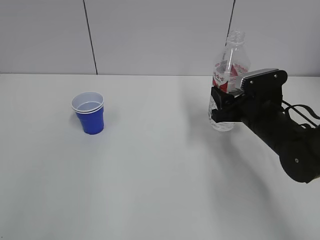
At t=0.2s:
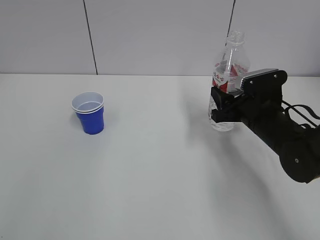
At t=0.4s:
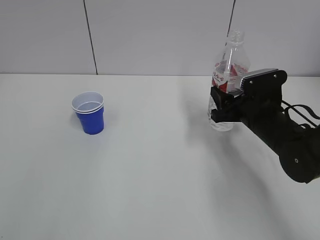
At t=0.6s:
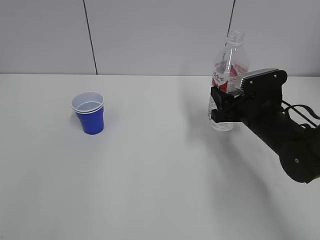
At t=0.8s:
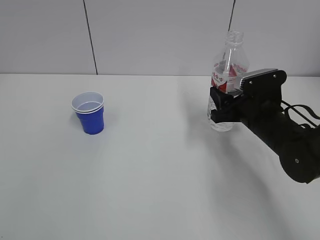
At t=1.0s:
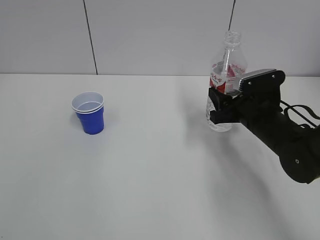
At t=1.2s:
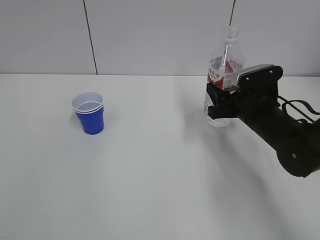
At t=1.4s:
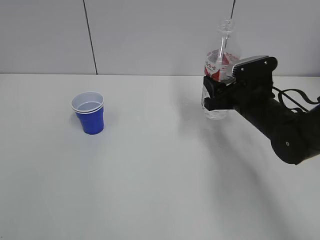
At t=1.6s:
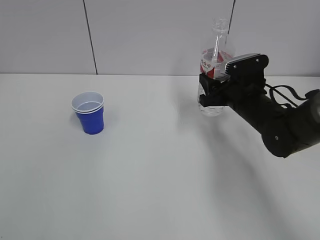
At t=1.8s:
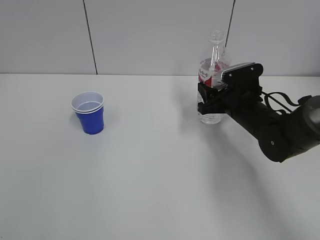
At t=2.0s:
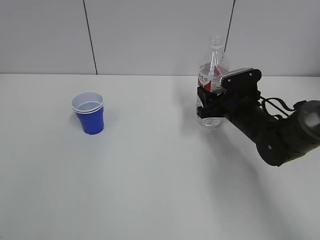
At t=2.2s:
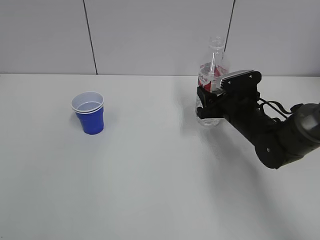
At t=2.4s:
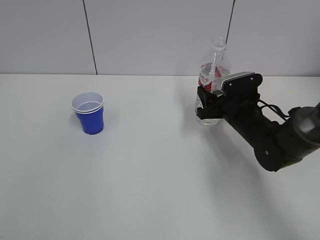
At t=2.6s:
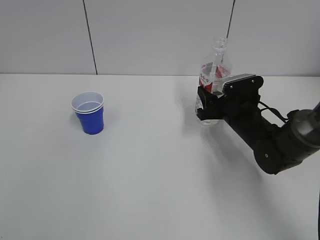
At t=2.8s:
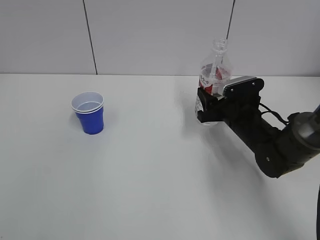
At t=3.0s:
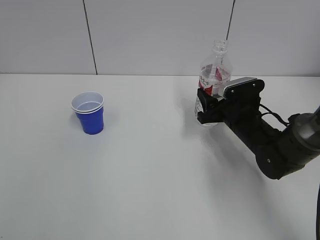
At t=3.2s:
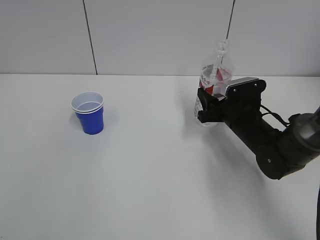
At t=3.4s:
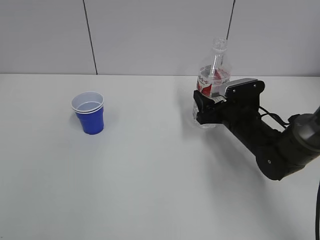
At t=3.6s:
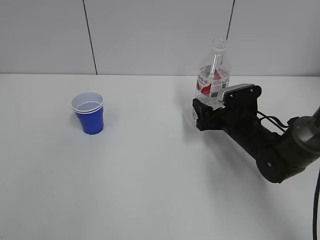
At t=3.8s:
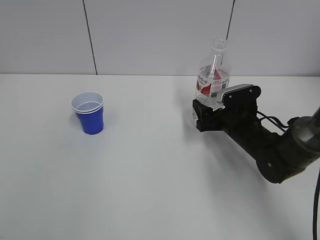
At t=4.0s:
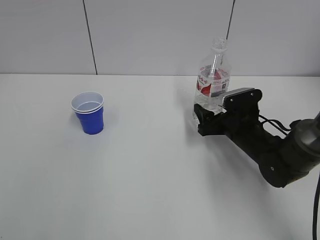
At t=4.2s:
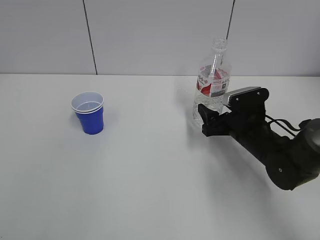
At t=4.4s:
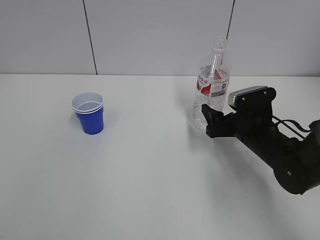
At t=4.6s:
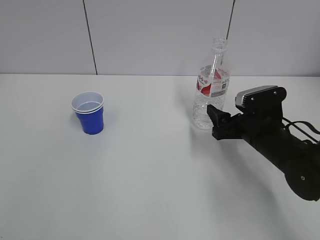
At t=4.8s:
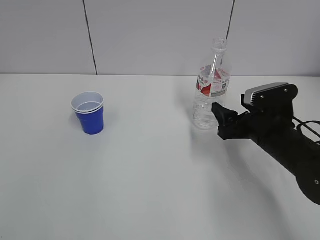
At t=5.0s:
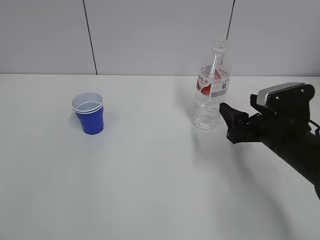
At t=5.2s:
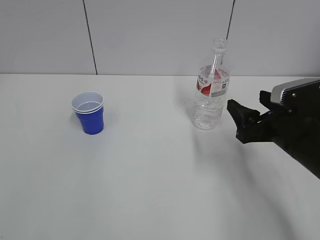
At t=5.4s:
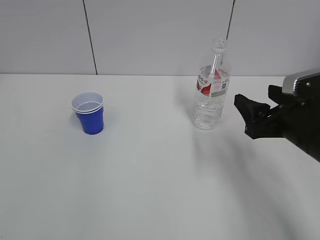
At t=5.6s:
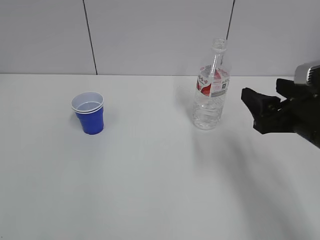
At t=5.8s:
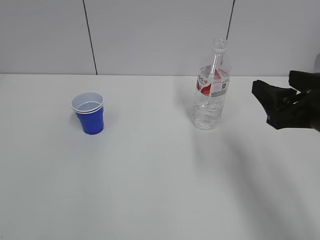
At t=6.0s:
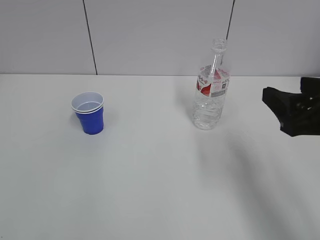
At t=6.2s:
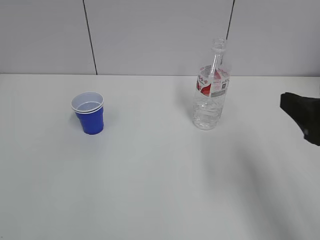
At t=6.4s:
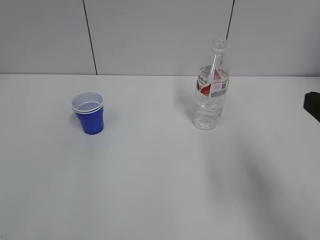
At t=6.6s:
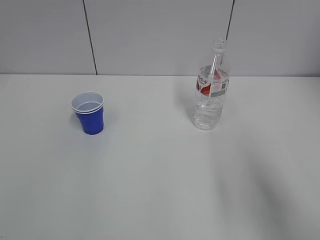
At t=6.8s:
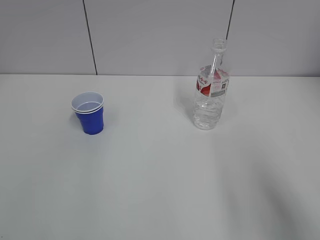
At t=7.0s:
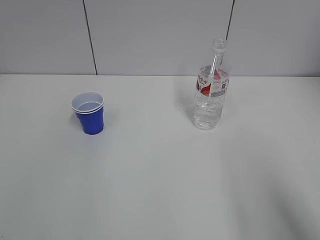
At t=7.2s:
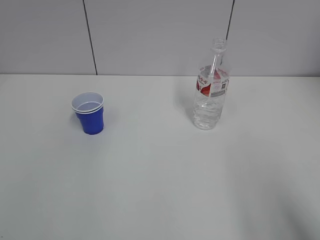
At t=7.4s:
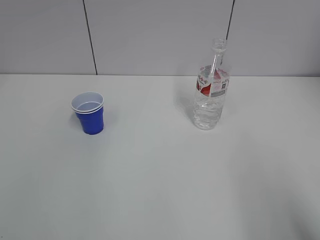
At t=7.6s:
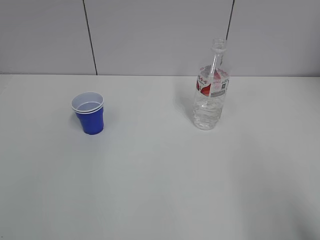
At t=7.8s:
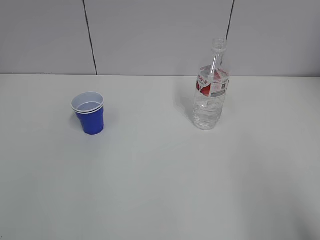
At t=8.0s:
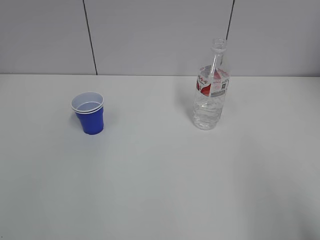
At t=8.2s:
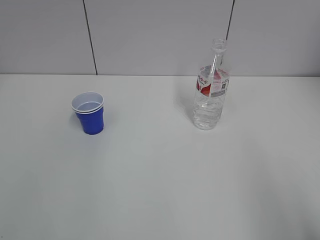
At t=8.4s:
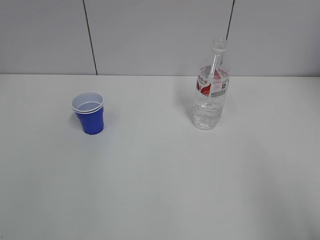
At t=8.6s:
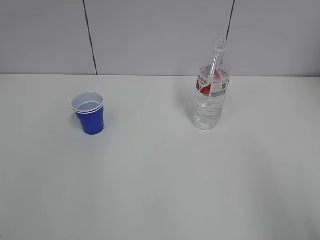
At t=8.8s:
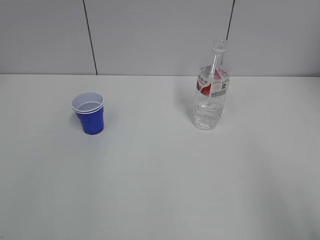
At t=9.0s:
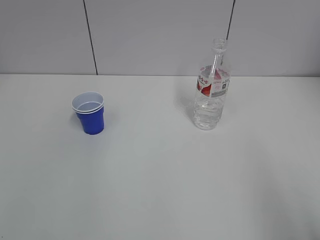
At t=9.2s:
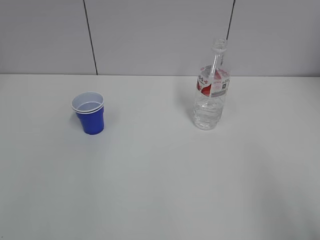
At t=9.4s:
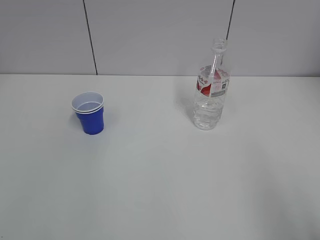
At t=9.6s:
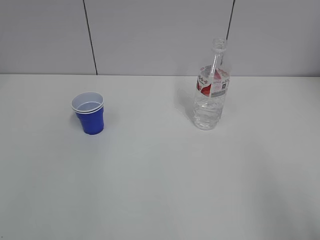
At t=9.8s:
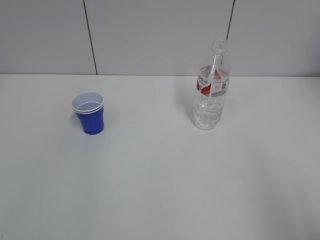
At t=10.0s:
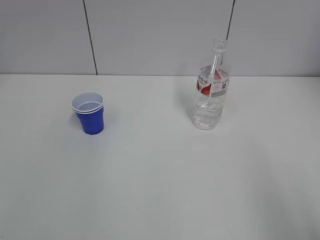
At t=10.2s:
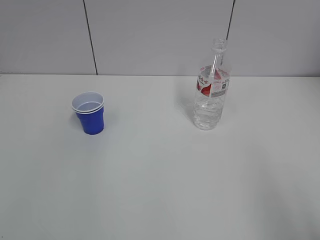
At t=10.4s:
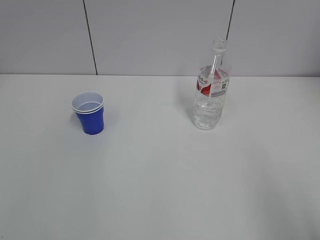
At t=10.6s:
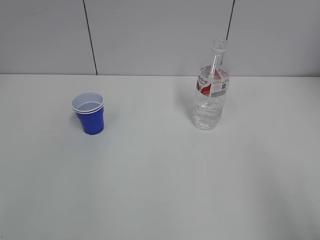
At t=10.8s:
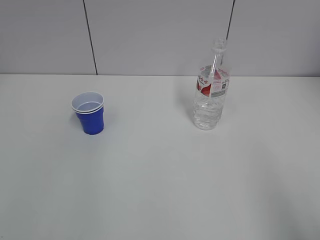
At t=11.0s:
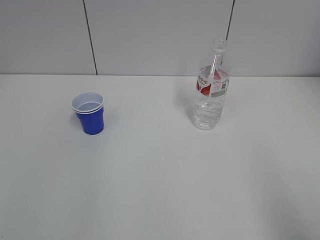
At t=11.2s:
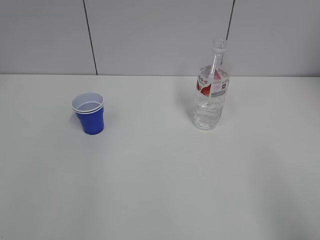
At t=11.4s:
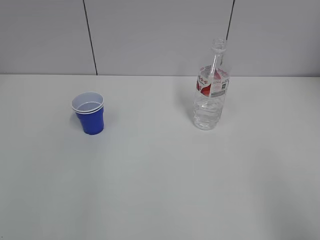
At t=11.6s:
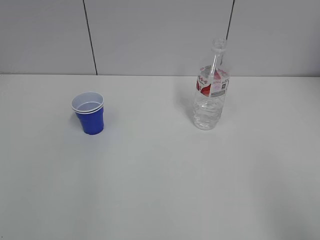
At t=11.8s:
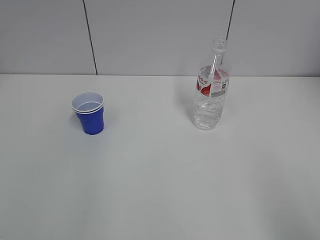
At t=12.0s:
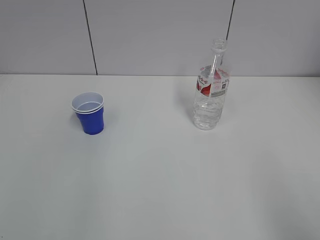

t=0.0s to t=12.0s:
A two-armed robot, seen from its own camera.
Step, t=0.0s to t=3.4s: Place the water bottle with the right hand.
t=0.0s to t=1.6s: The left gripper moves roughly 5 cm.
t=1.6s to t=3.0s: The grippers stay close to where they were, moving slightly.
t=3.0s to t=4.4s: The right gripper opens up.
t=4.4s to t=6.0s: The right gripper moves upward and backward, approximately 20 cm.
t=6.0s to t=7.6s: The right gripper shifts about 15 cm backward.
t=9.0s to t=10.4s: The two grippers keep their place.

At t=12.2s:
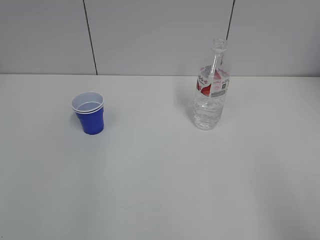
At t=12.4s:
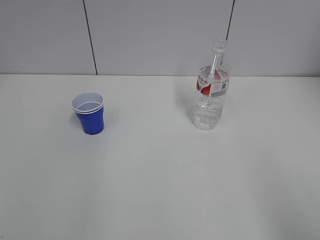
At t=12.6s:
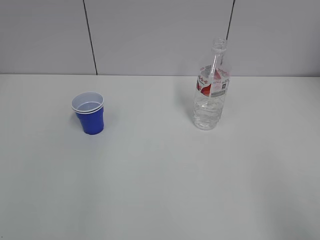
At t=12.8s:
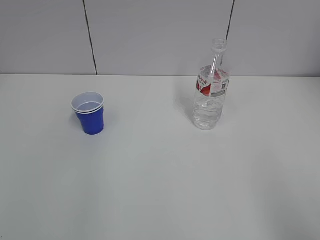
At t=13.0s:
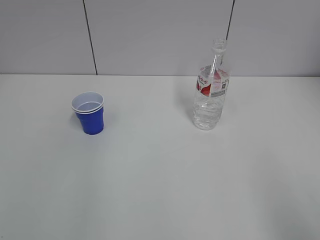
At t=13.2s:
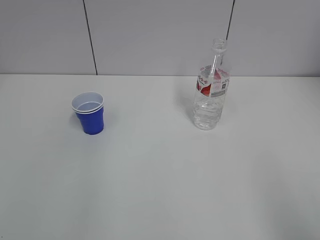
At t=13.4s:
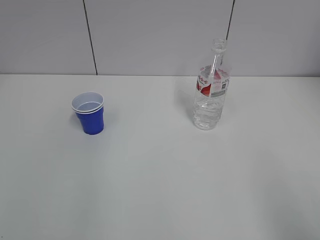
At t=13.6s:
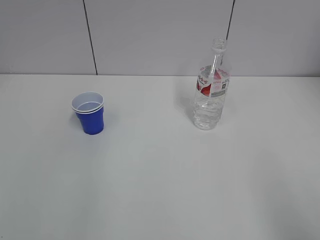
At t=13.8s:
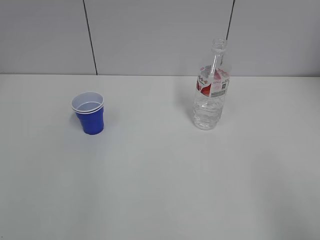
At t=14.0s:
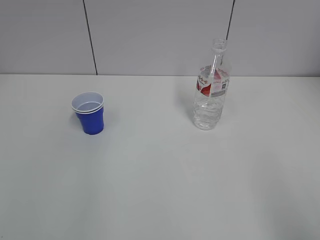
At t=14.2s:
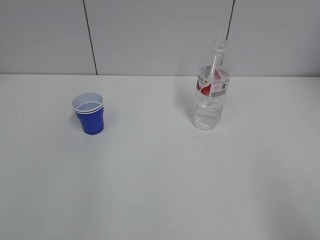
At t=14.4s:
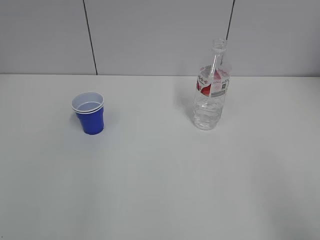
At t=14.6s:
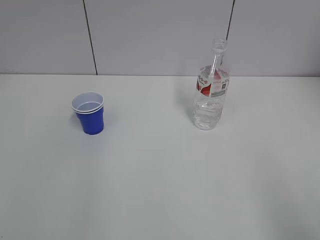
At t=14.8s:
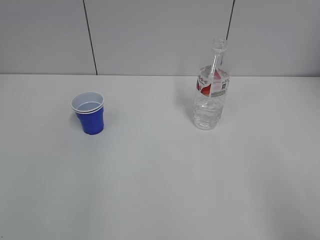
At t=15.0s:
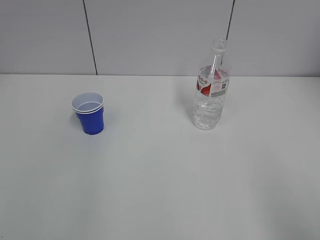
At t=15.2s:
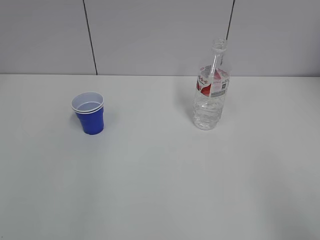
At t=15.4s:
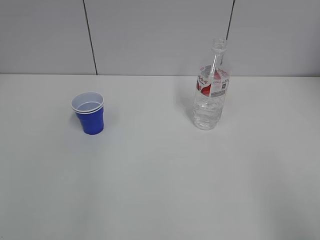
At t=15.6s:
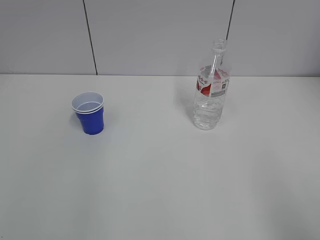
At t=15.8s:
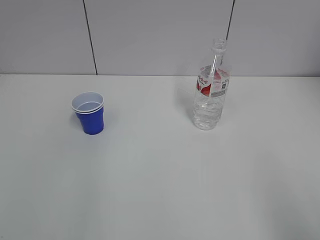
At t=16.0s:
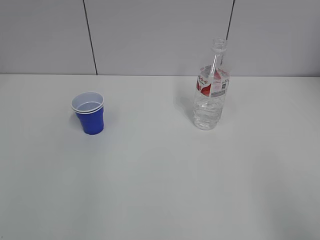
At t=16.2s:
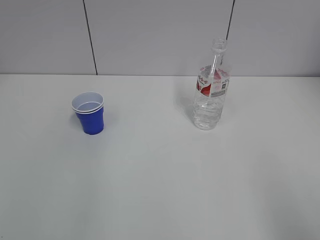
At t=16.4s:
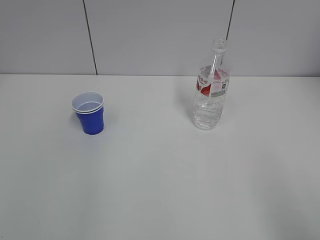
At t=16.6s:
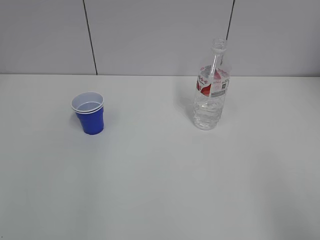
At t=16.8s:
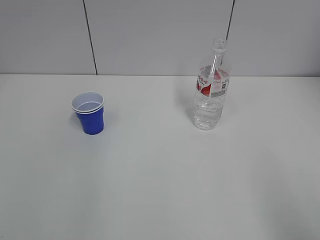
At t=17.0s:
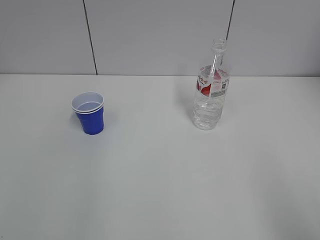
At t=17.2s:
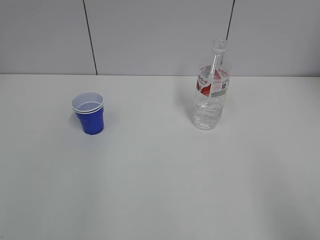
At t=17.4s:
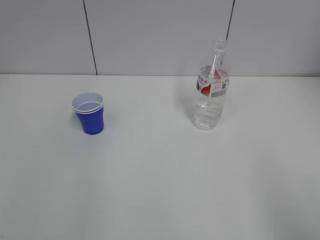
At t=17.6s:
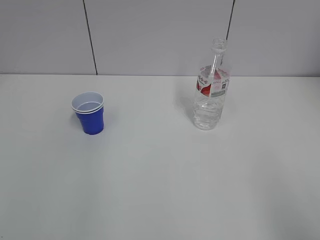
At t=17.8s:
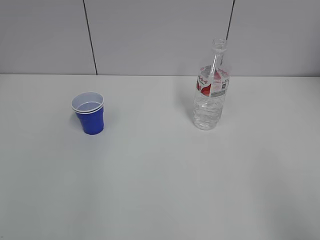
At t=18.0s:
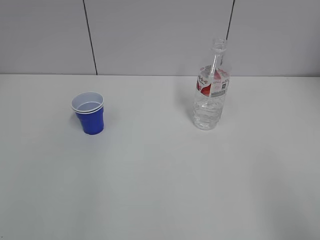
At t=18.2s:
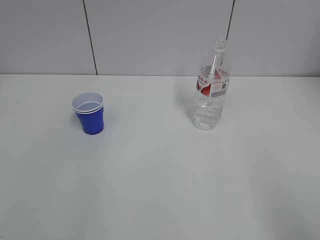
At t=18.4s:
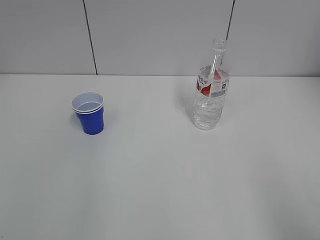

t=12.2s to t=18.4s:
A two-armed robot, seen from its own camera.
t=12.2s to t=18.4s: Neither gripper changes place.
